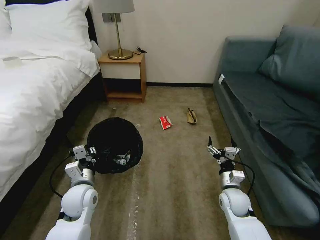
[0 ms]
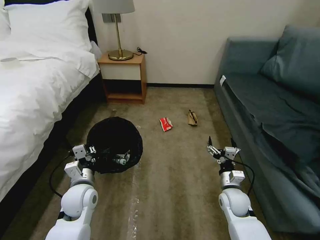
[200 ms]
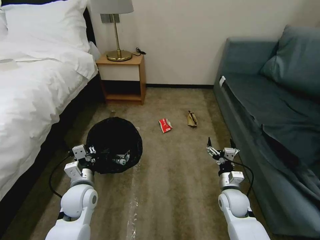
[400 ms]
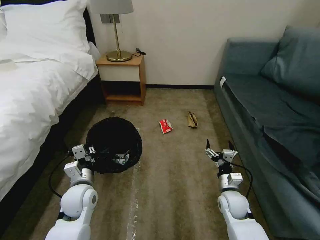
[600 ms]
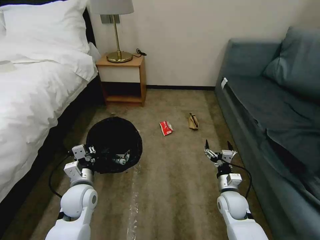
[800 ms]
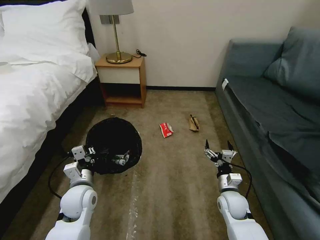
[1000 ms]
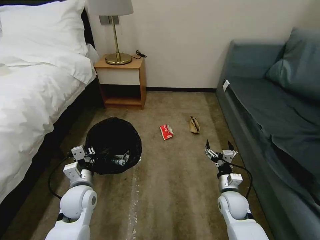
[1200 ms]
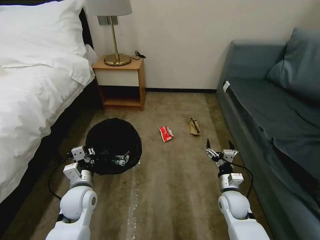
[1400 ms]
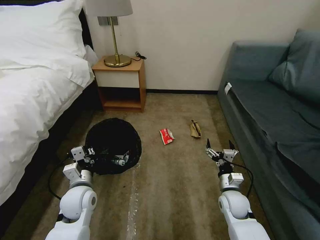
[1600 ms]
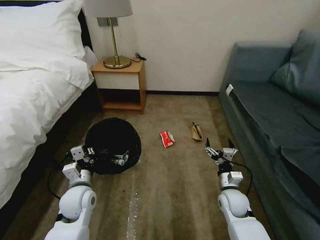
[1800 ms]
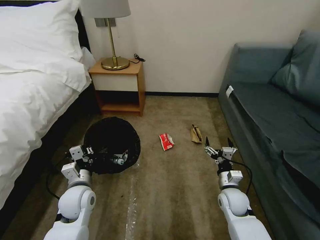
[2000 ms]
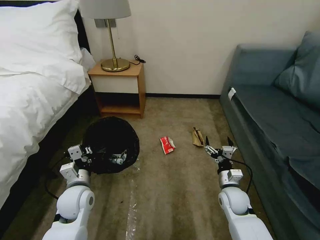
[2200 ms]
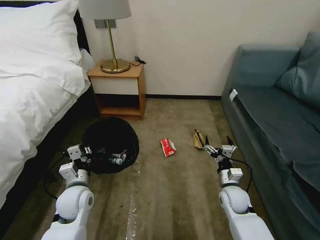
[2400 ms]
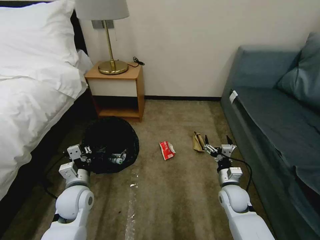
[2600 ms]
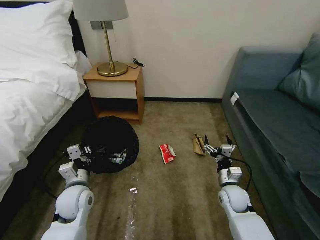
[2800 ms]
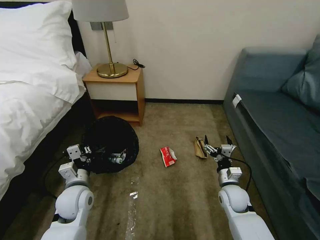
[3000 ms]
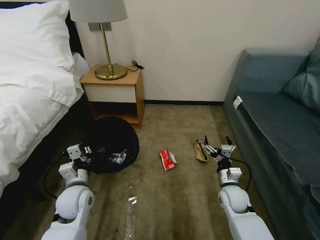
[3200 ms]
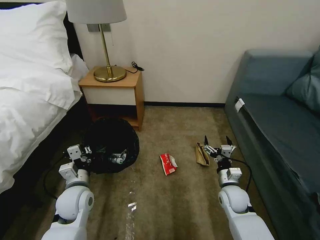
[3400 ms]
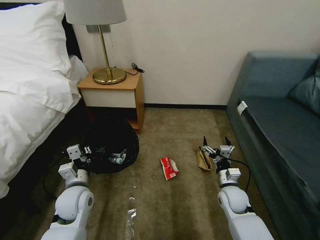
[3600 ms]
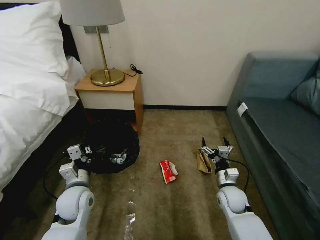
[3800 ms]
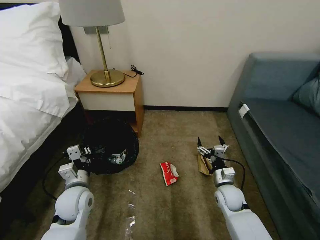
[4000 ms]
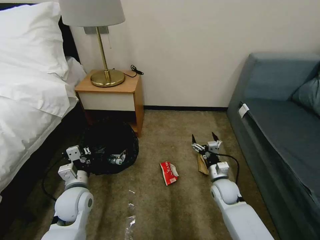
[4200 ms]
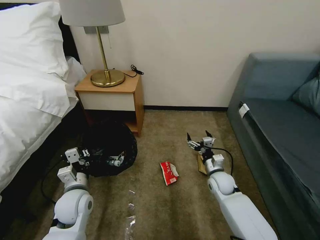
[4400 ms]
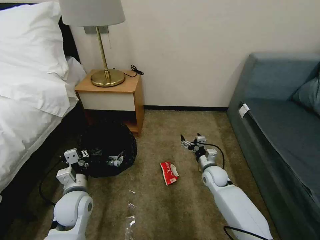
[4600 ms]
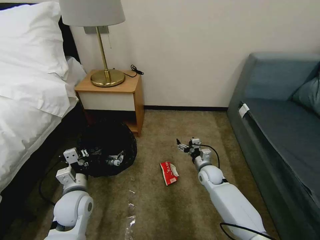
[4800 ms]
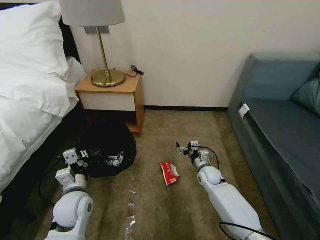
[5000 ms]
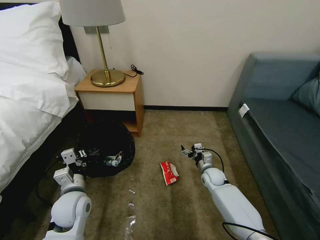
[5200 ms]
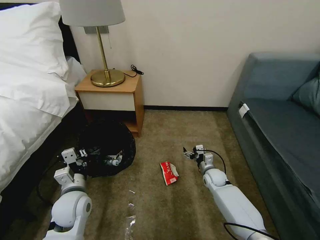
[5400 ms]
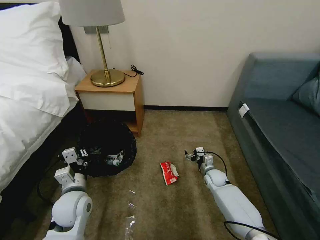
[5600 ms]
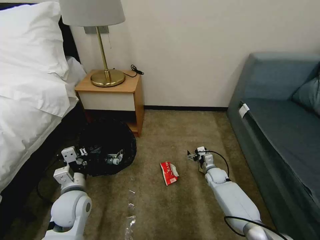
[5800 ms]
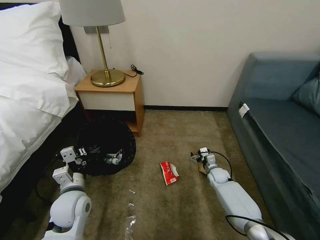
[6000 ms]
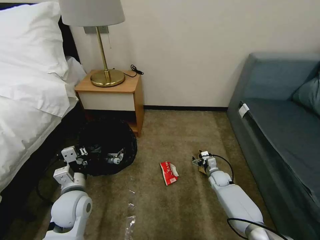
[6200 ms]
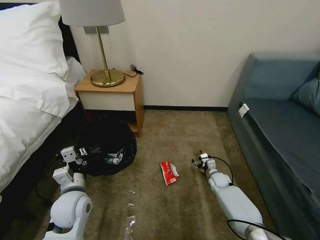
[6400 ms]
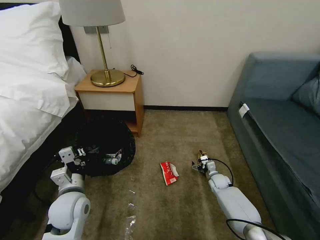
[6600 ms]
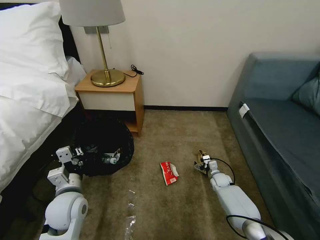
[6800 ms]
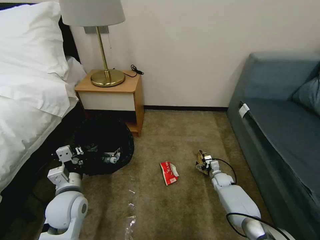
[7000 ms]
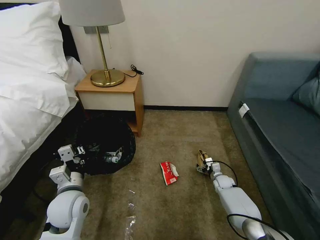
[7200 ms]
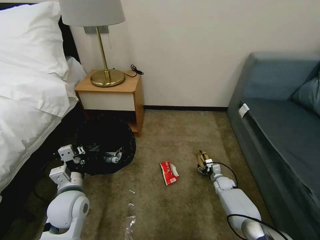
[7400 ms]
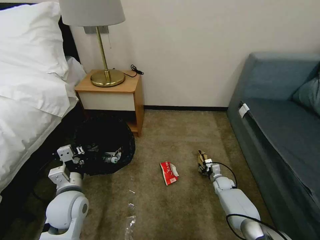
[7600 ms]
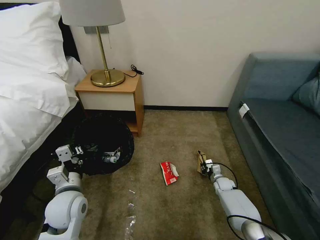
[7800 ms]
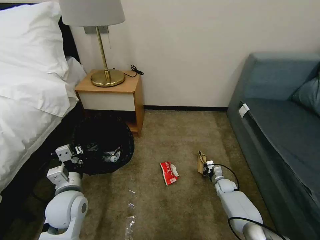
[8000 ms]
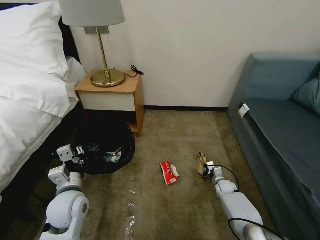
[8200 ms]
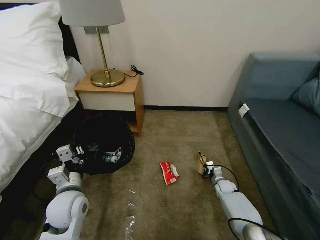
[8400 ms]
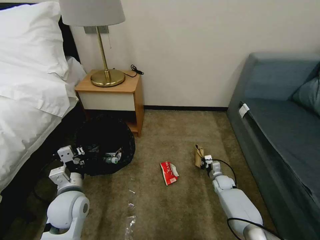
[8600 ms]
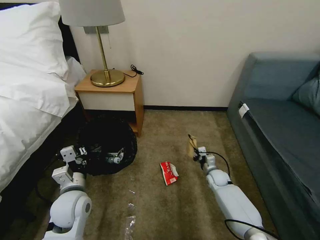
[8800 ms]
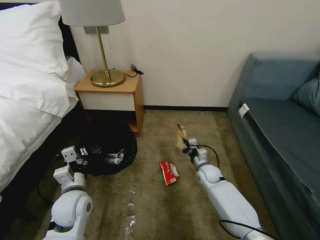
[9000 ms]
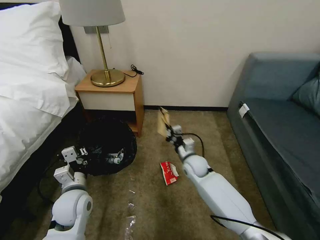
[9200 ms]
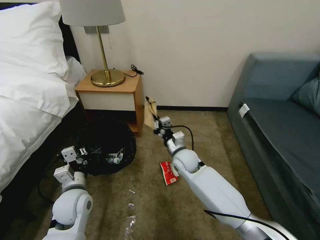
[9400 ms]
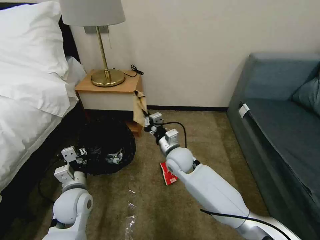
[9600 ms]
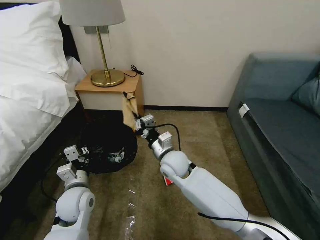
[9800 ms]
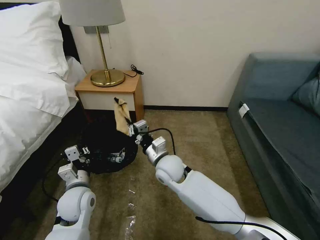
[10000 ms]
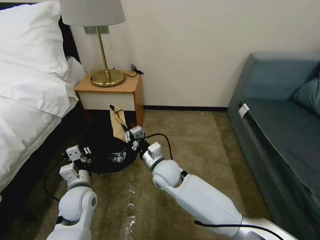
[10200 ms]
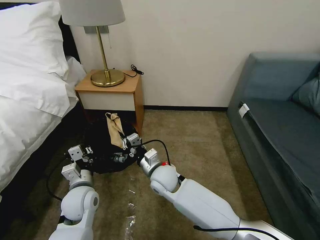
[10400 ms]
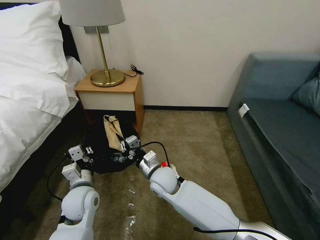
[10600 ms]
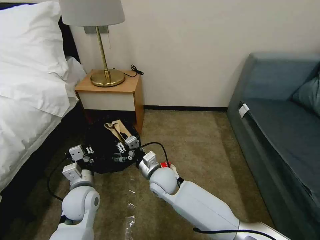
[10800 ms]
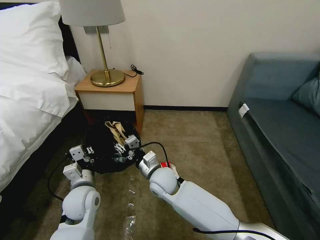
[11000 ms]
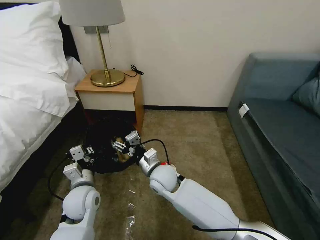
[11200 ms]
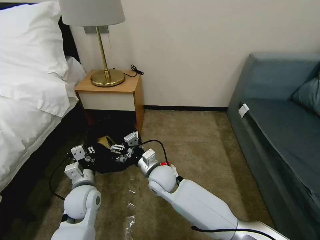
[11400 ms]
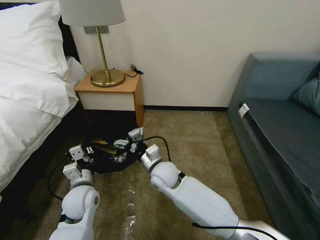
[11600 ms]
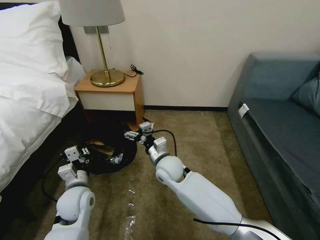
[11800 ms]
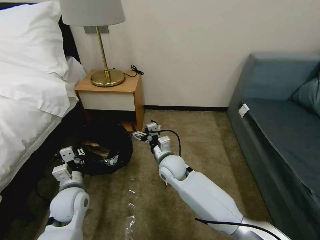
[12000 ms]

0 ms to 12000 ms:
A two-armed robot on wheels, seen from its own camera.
Task of the whole recording: Pick up the trash bin, then pick up the garbage on the floor and place it into the trash bin.
0 ms to 1600 ms: Both grippers stay about where they are.
3000 ms to 4400 ms: The right gripper travels forward by roughly 5 cm.
4400 ms to 6000 ms: The right gripper goes approximately 10 cm downward and forward.
6000 ms to 7600 ms: The right gripper shifts roughly 5 cm downward, and closes its fingers.
7600 ms to 9000 ms: The right gripper is displaced upward and to the left by approximately 15 cm, and closes up.
9000 ms to 10400 ms: The right gripper goes roughly 25 cm to the left and upward.
10400 ms to 12000 ms: The right gripper moves about 5 cm, and opens.

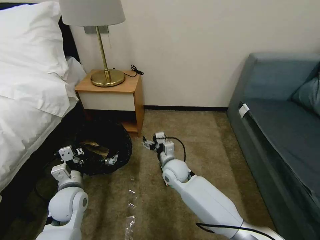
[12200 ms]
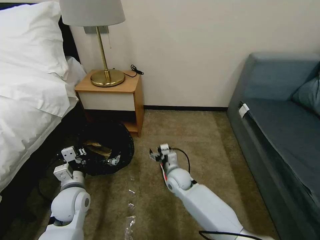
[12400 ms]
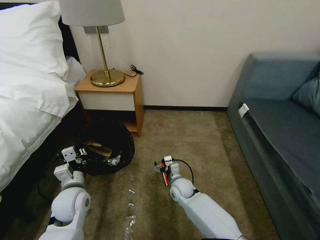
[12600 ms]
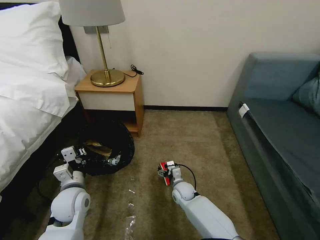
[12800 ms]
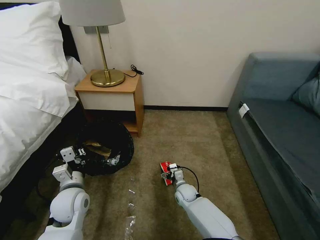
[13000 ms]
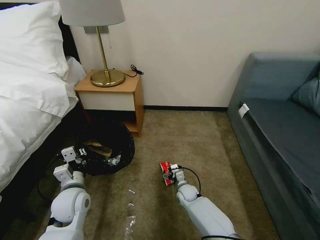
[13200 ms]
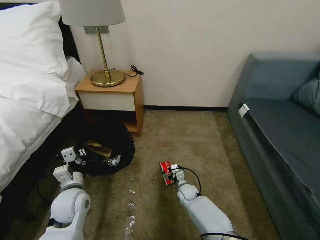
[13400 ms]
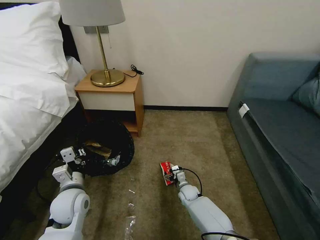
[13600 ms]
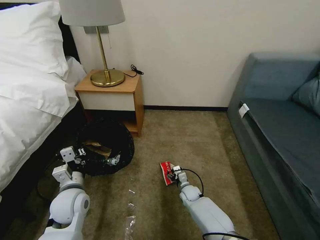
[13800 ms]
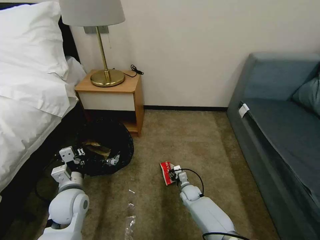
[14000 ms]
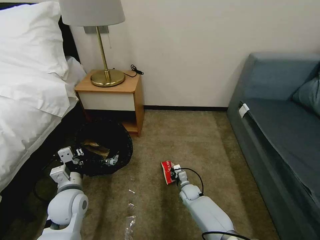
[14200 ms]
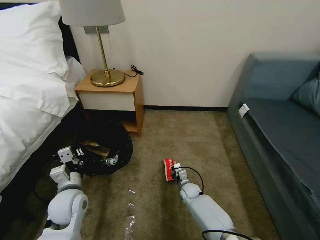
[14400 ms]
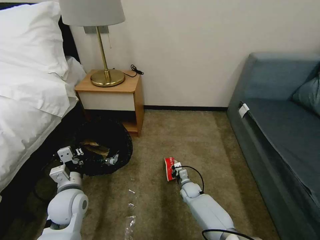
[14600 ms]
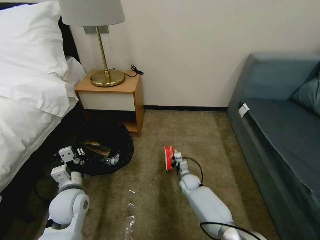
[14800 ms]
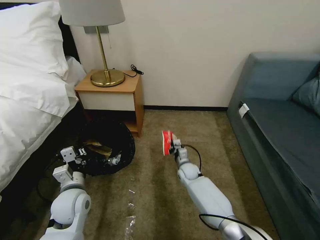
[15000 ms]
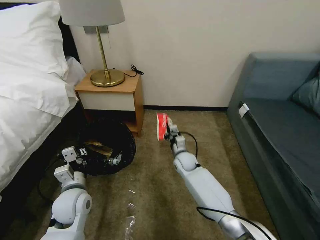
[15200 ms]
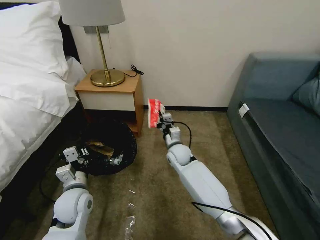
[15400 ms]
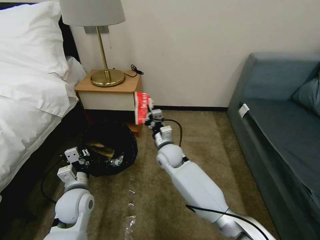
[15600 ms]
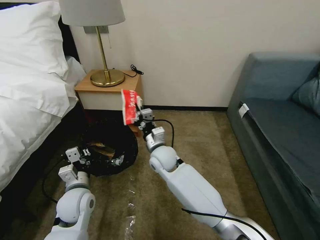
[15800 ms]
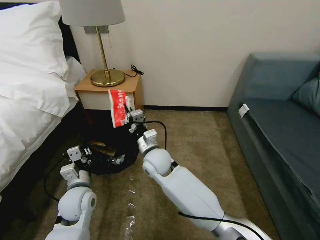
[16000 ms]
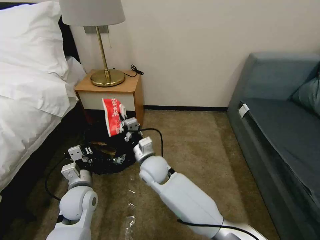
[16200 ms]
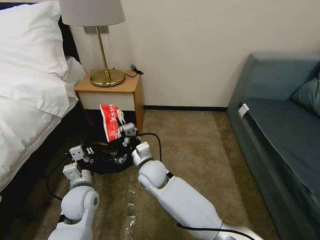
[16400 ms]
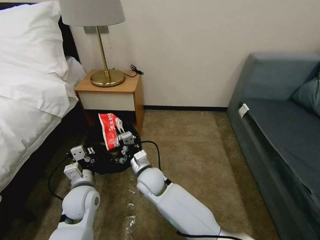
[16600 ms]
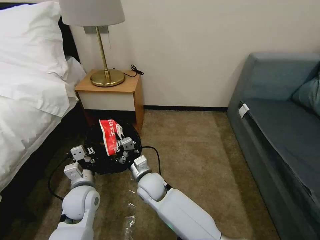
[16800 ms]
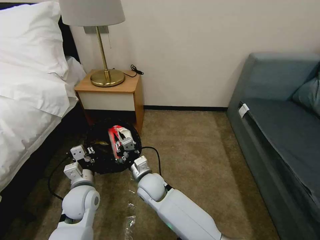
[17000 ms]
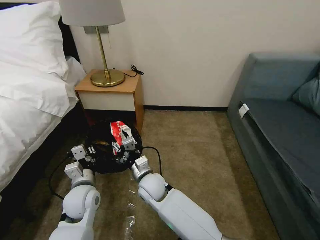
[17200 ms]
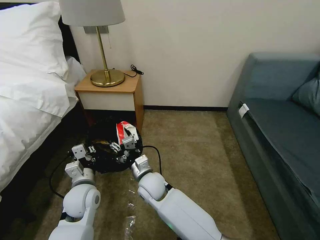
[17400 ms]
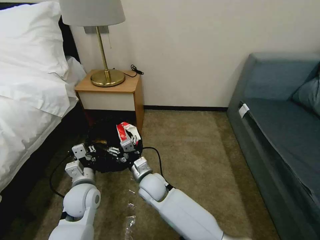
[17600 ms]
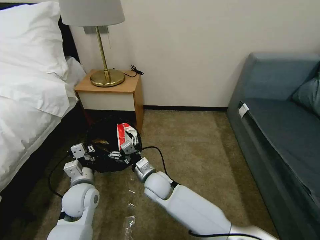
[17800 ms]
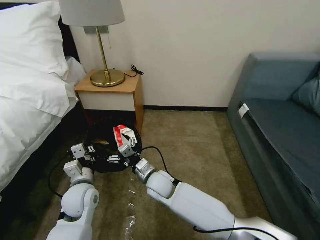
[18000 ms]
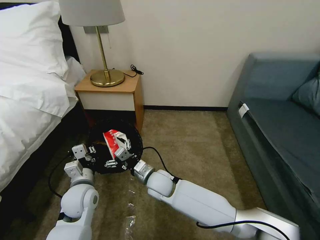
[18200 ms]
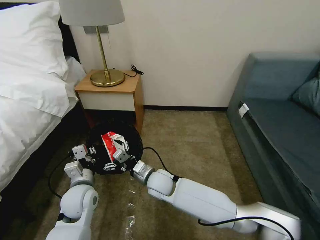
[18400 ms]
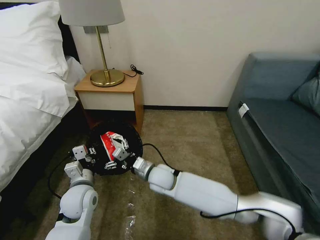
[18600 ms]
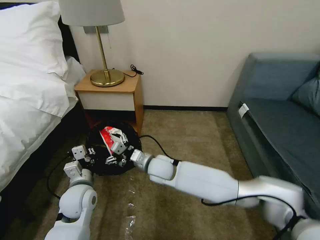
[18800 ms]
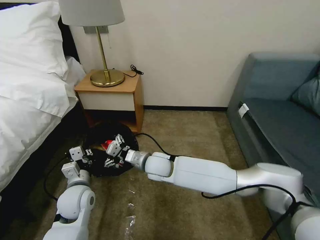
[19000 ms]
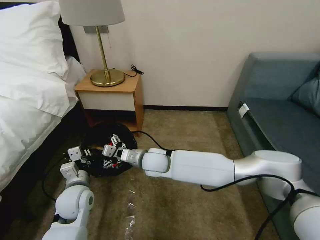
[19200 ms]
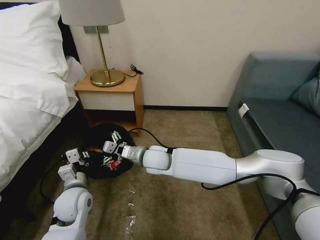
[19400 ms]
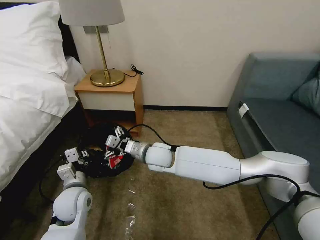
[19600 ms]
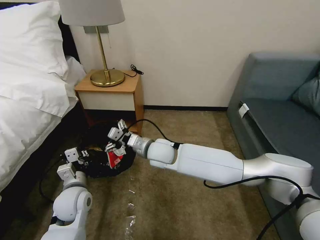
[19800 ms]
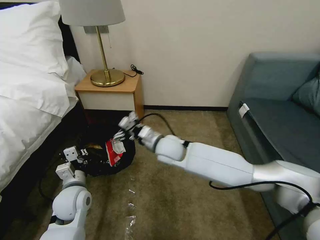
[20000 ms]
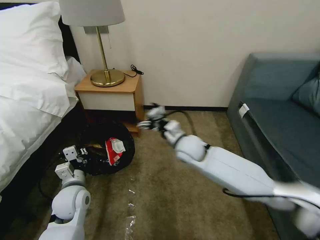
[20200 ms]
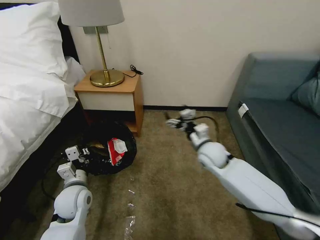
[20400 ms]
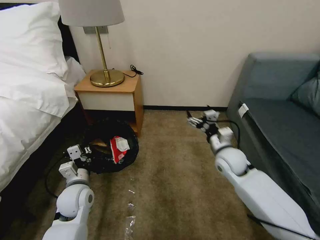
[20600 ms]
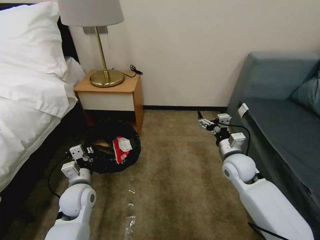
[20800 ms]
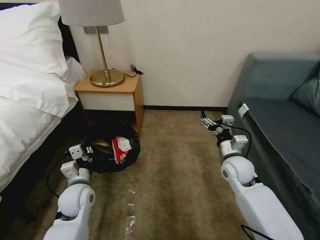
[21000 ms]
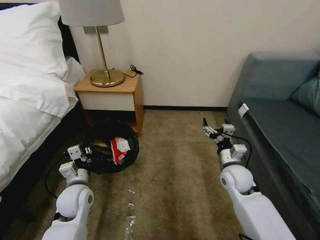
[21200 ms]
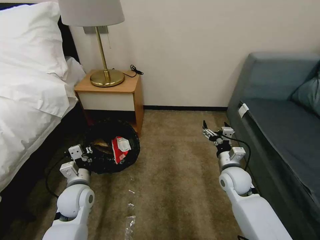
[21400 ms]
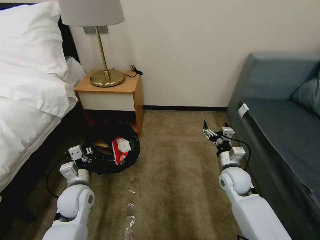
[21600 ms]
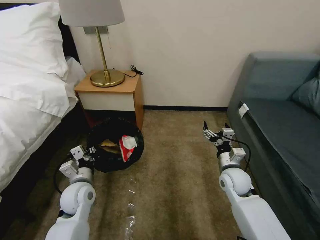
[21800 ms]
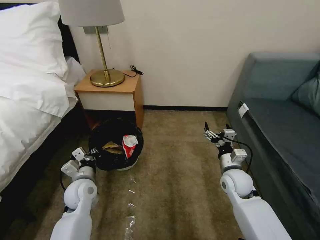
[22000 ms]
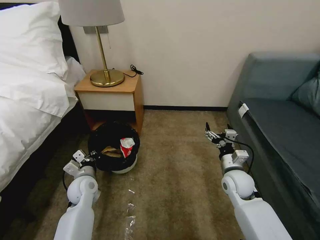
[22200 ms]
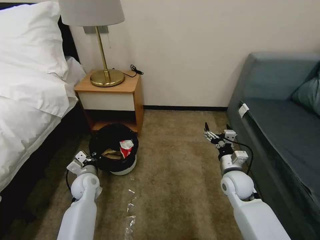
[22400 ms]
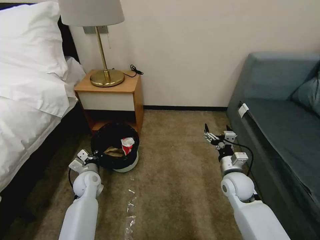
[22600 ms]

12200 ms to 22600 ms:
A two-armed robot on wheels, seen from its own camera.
Task of the whole recording: Pick up the trash bin, then pick up the garbage on the floor and place it into the trash bin.
12200 ms to 13600 ms: The right gripper goes about 20 cm downward.
13600 ms to 15200 ms: The right gripper moves upward and forward, roughly 20 cm, and closes its fingers.
15200 ms to 16600 ms: The right gripper moves to the left, backward and upward, roughly 20 cm.
16600 ms to 18200 ms: The right gripper opens up.
18200 ms to 19600 ms: The right gripper heads upward and forward, covering some 10 cm.
19600 ms to 21200 ms: The right gripper is displaced to the right by approximately 25 cm.
21200 ms to 22600 ms: The left gripper moves forward and downward, approximately 10 cm.
